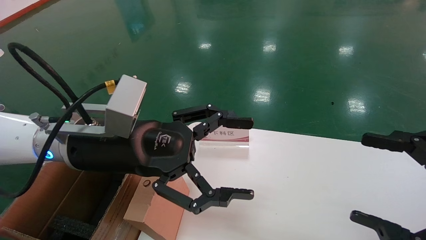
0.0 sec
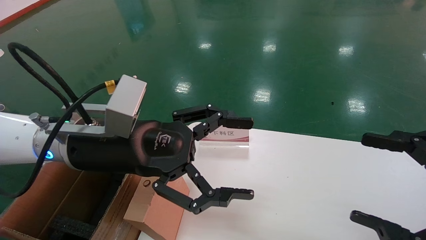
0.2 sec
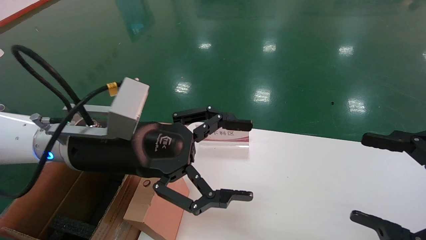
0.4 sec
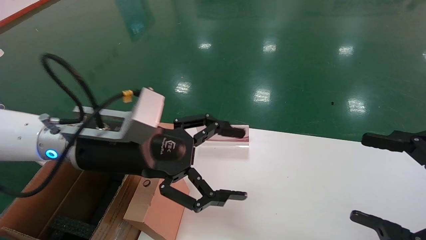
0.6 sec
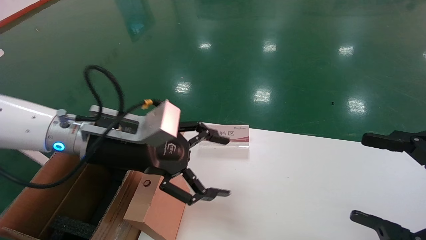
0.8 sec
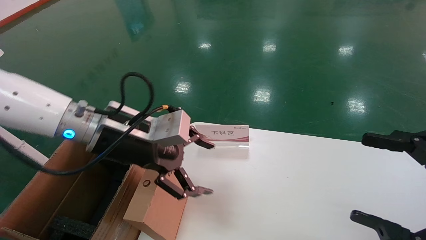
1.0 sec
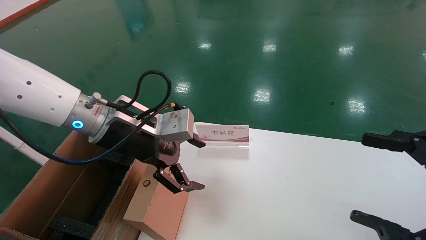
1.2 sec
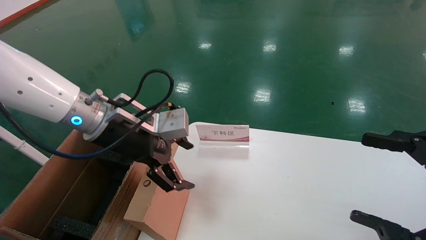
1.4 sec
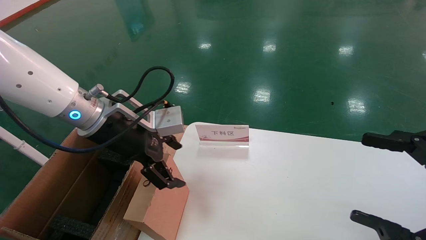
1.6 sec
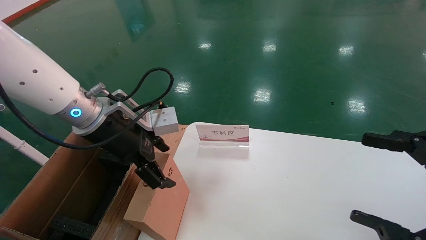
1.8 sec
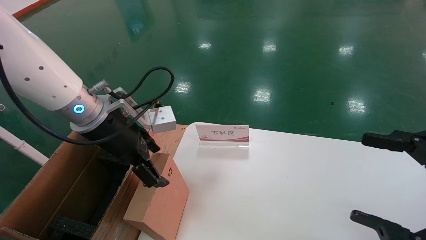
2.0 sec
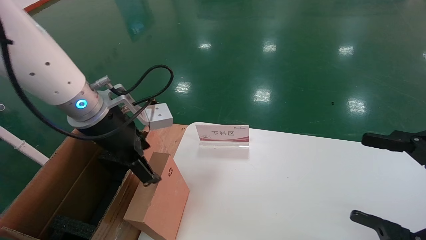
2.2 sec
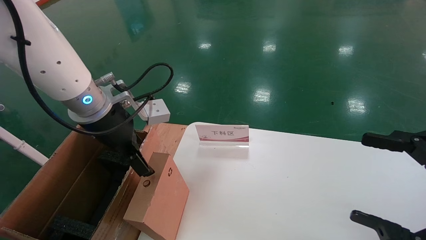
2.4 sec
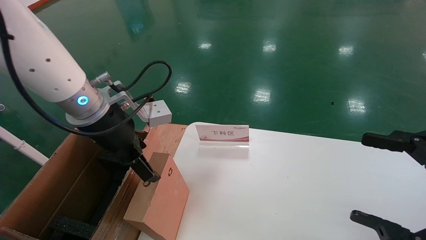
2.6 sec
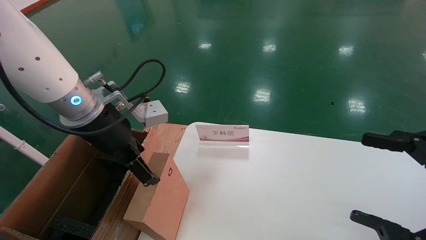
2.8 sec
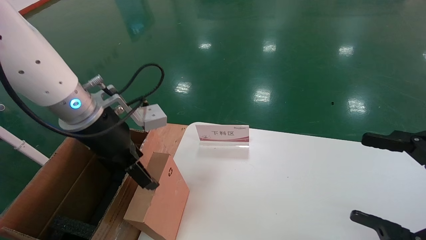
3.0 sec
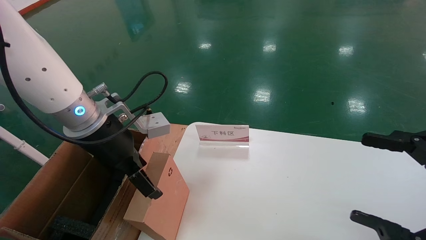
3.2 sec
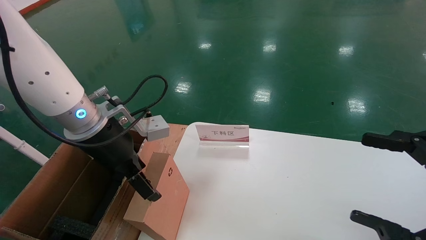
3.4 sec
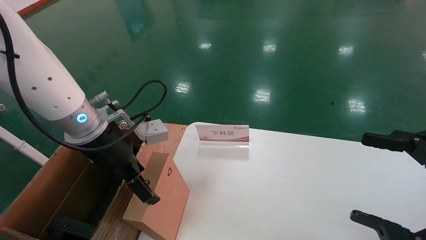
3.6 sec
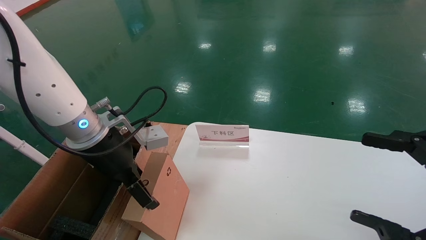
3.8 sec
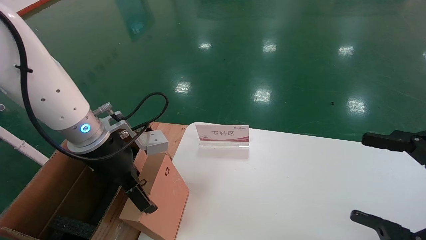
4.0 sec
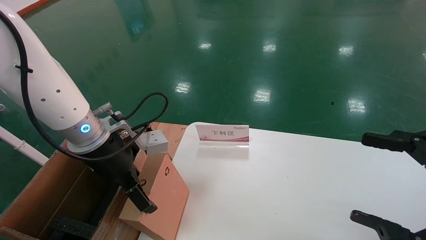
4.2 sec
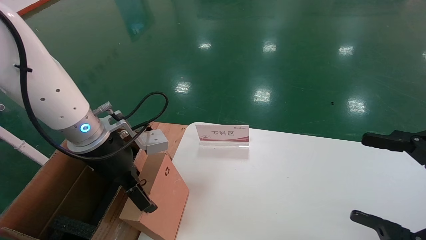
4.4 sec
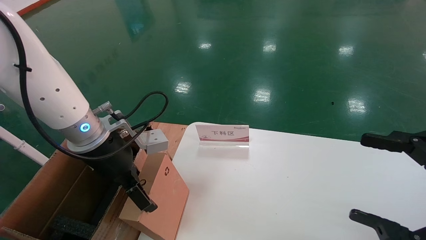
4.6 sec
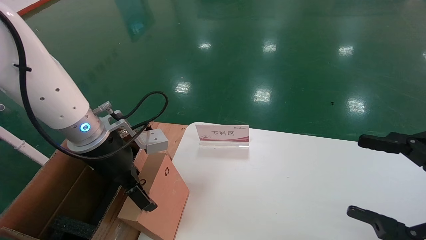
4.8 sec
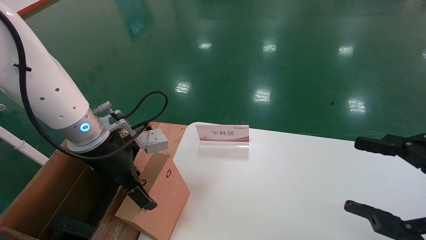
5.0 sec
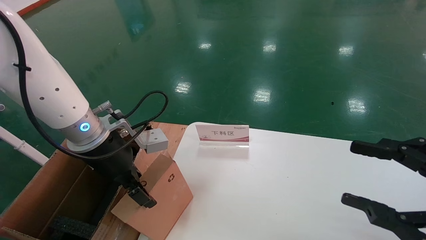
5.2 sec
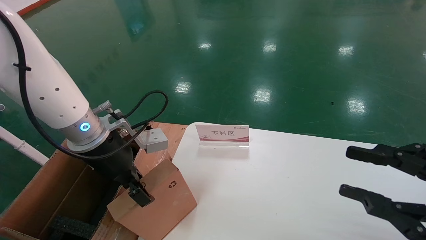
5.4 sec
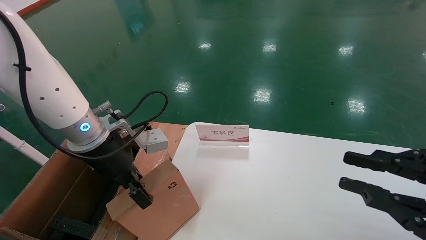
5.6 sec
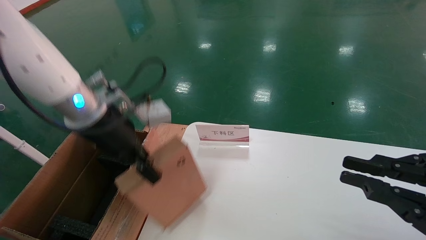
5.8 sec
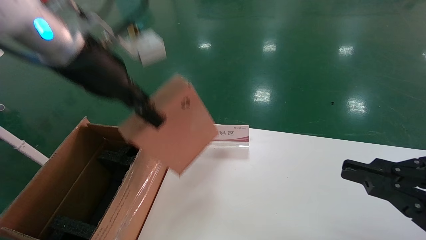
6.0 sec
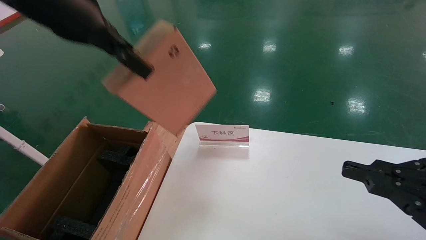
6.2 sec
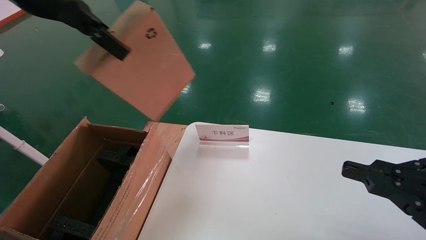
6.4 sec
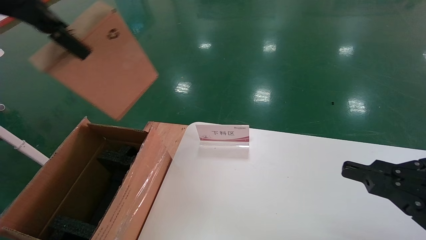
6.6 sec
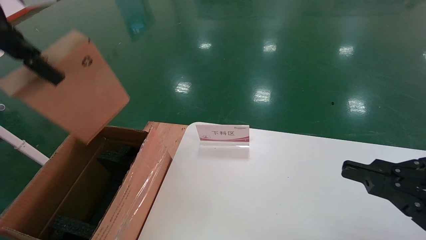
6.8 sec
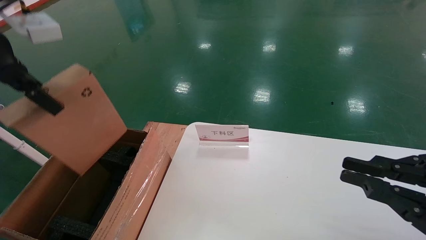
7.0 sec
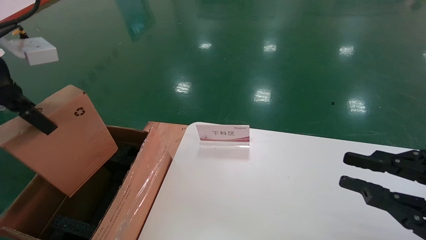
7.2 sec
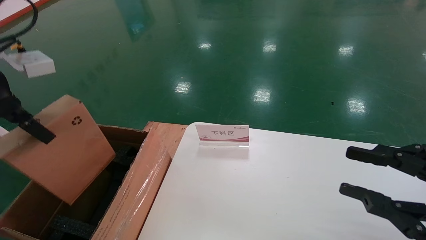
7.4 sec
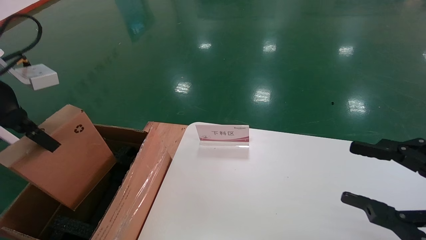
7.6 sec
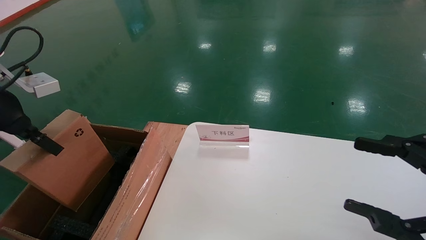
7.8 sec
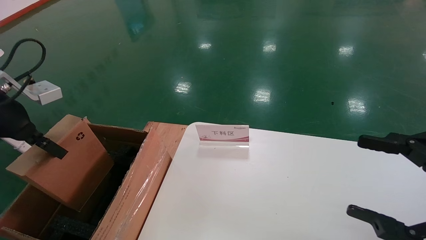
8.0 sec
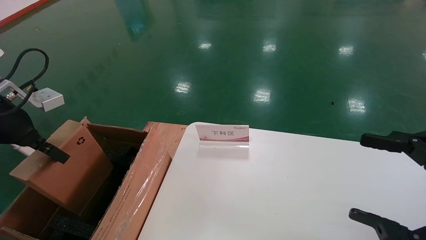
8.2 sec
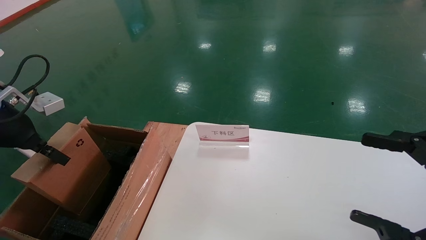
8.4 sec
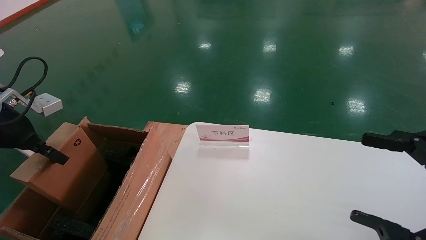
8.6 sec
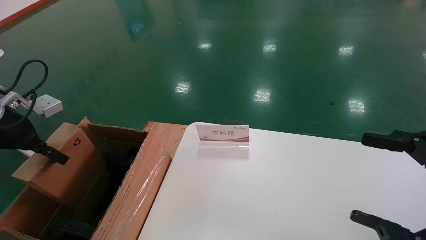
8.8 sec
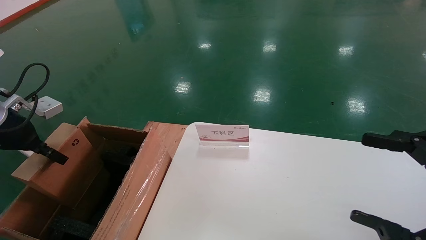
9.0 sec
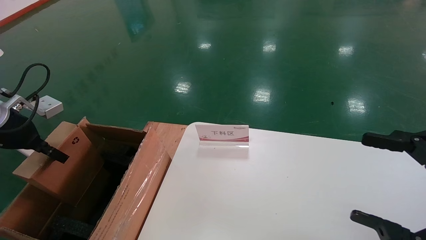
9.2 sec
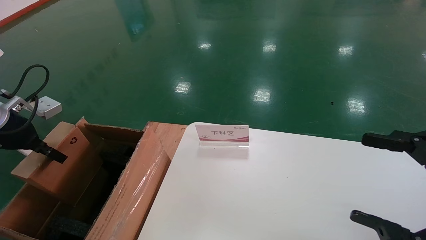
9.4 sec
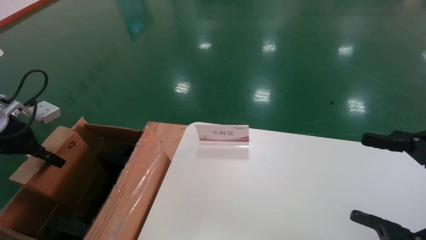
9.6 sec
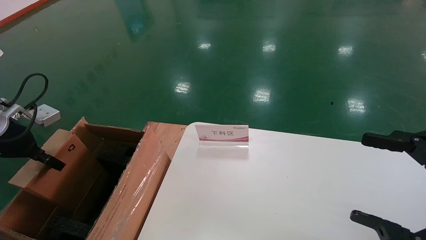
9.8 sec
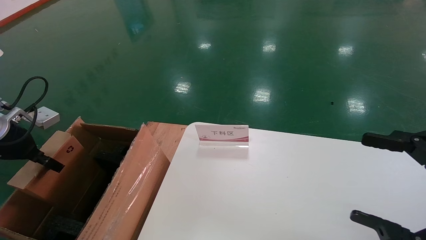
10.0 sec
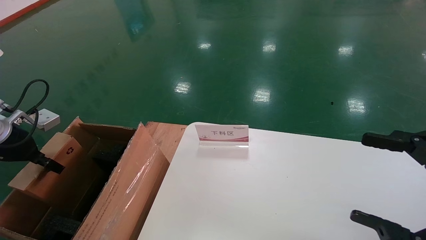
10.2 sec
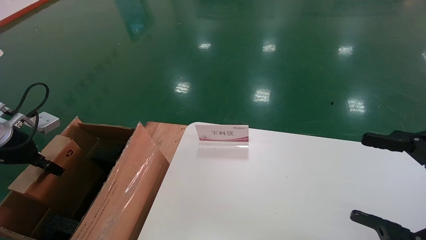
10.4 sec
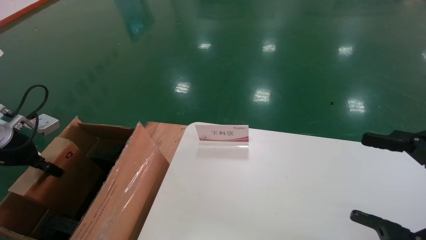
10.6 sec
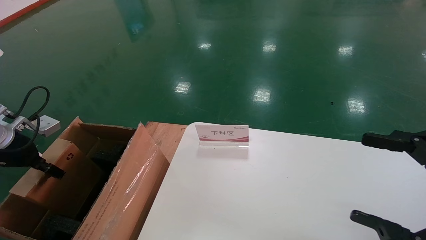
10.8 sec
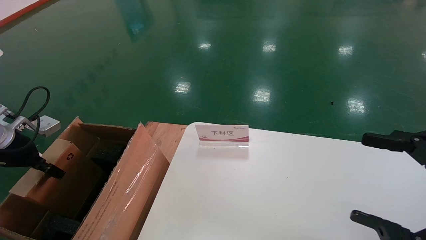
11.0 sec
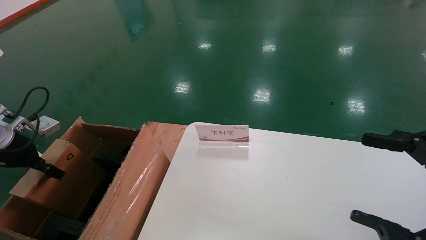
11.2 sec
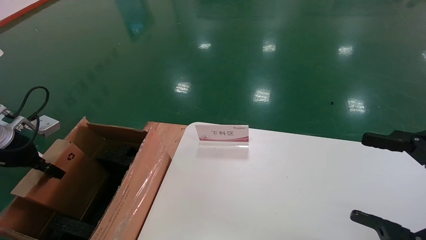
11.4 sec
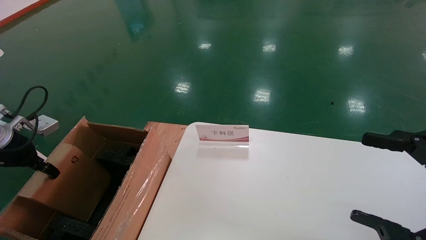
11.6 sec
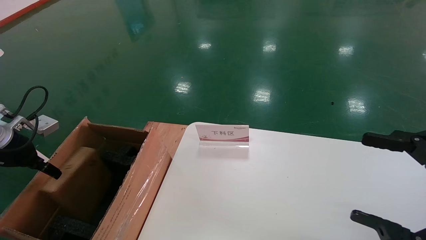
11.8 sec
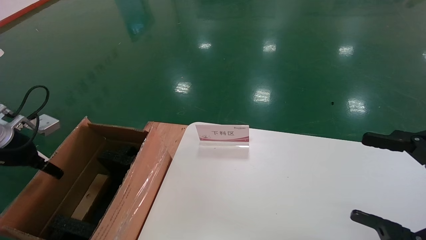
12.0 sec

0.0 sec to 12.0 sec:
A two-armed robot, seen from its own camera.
Task of the whole recording: pick up the small cardboard box and load it into the large cardboard box.
Step, 1.0 sec to 5.4 sec: Pick up the mouse and power cord box.
0.0 sec to 1.6 sec: The left gripper moves forward, about 5 cm.
3.0 sec to 4.4 sec: There are only small adjustments of the grippers.
4.4 sec to 6.0 sec: The right gripper closes. The left gripper moves upward, about 15 cm, and closes its fingers.
6.0 sec to 7.6 sec: The left gripper travels to the left by roughly 15 cm.
7.6 sec to 9.0 sec: The left gripper heads downward and to the left, covering some 10 cm; the right gripper opens up.
9.0 sec to 10.4 sec: The left gripper changes place by some 5 cm.
10.4 sec to 12.0 sec: The left gripper opens up.

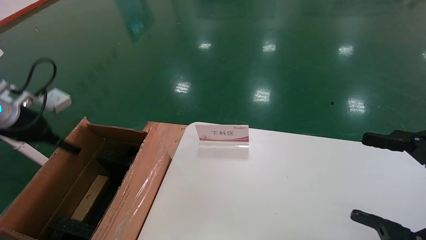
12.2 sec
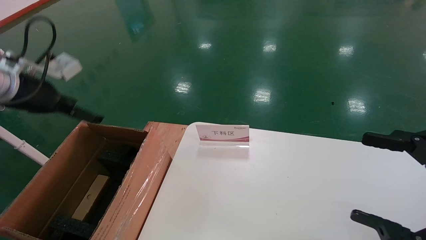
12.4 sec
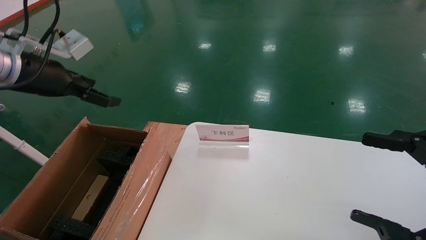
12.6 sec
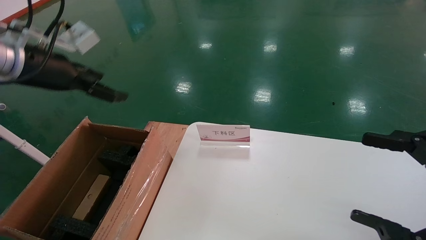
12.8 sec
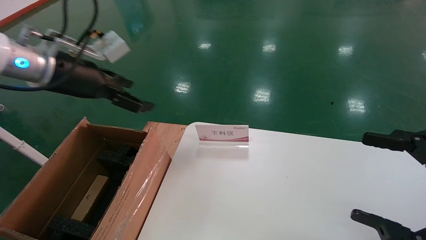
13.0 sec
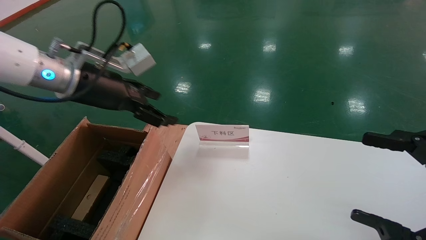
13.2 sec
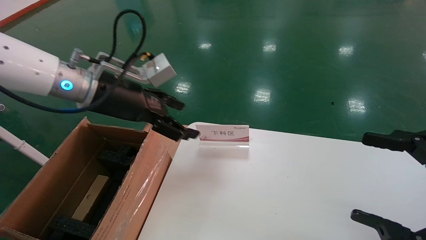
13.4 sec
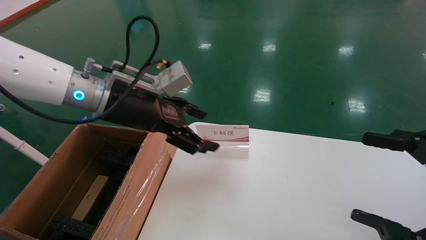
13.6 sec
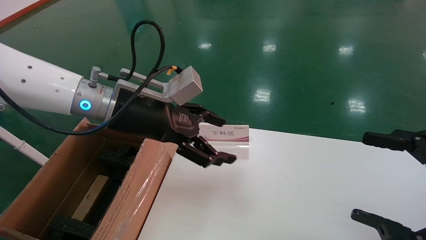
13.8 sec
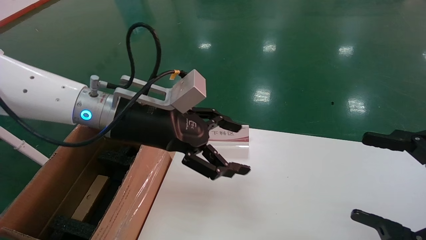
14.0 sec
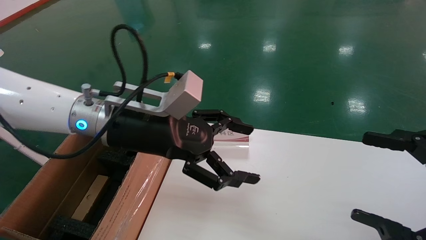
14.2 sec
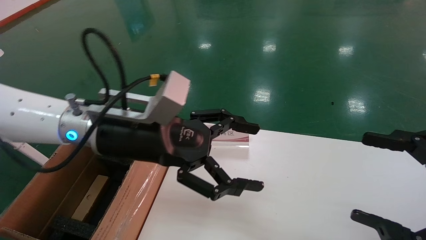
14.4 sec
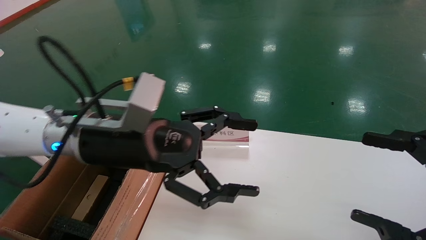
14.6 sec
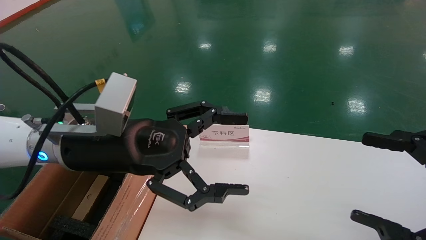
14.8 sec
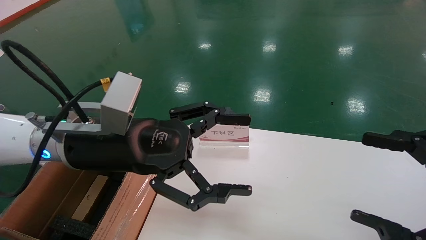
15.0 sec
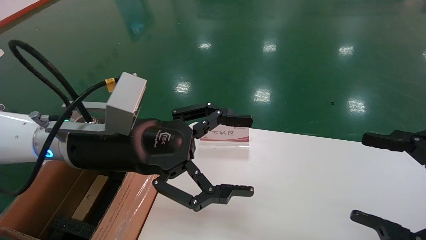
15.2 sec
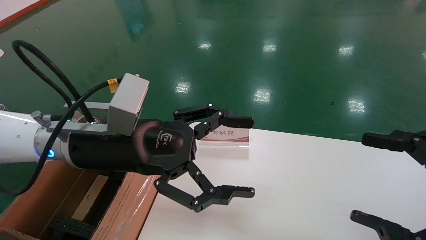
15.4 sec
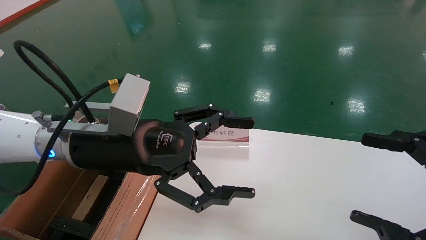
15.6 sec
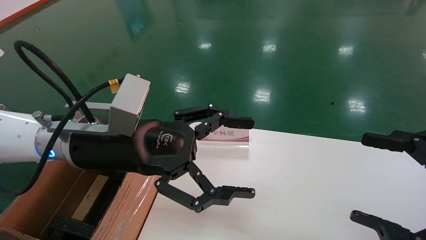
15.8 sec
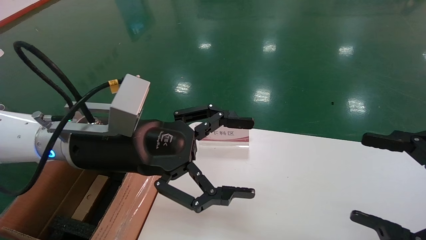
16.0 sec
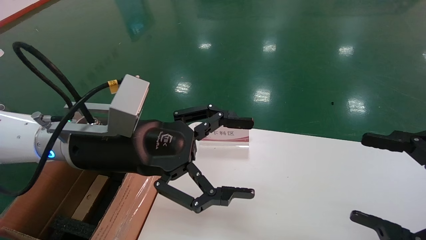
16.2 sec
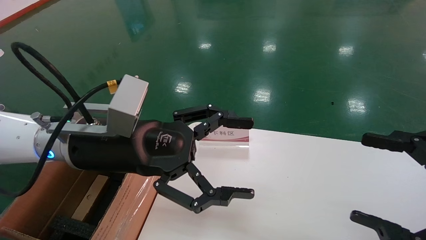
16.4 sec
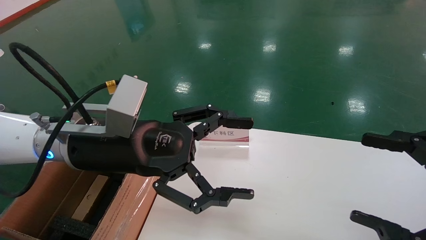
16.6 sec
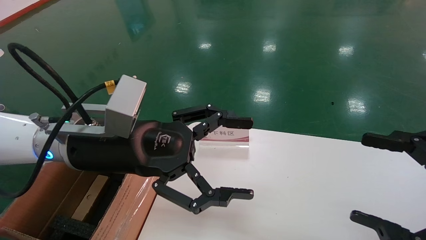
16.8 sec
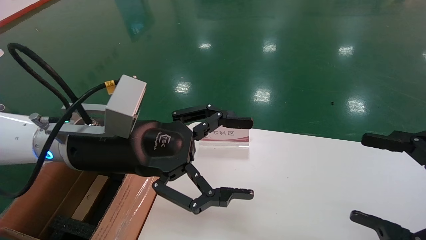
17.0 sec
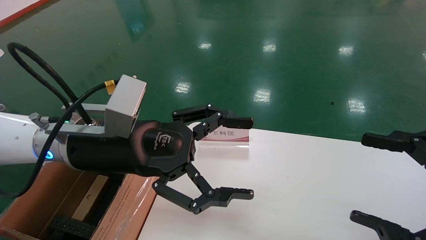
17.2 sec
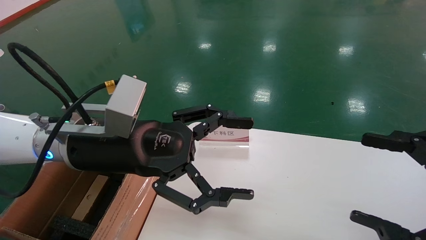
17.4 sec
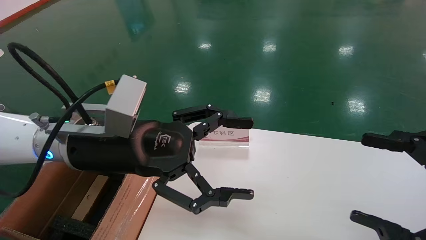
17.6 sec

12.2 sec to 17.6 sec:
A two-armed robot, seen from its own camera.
Task of the whole recording: pick up the small cardboard box and load it into the large cardboard box.
12.2 sec to 13.6 sec: The left gripper travels to the right by approximately 25 cm.
13.6 sec to 15.0 sec: The left gripper moves backward, about 5 cm.
15.0 sec to 17.6 sec: Both grippers stay put.
